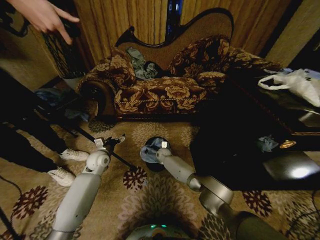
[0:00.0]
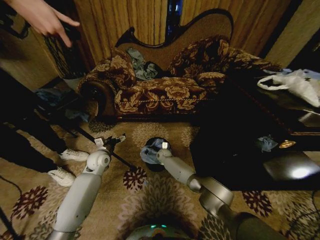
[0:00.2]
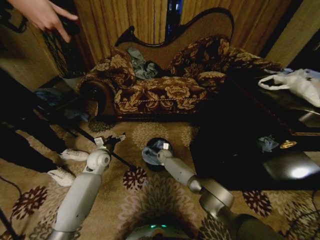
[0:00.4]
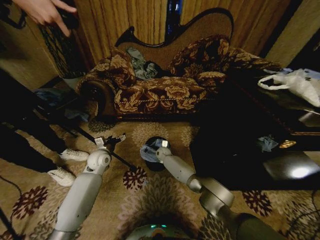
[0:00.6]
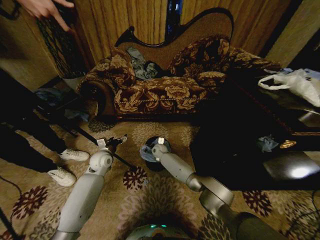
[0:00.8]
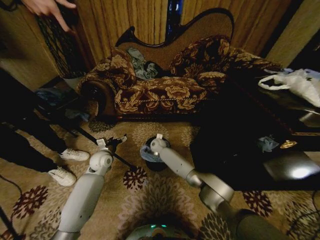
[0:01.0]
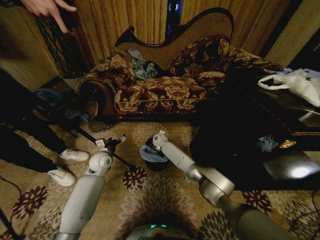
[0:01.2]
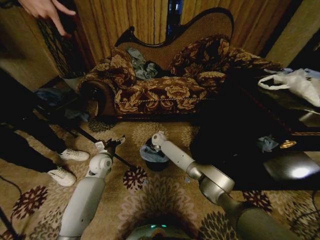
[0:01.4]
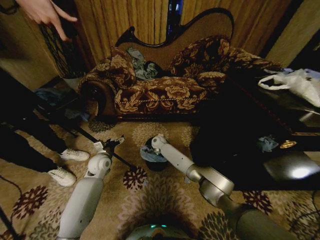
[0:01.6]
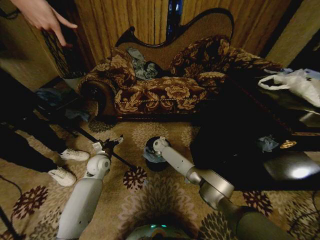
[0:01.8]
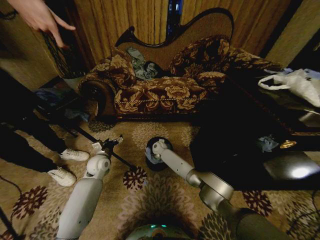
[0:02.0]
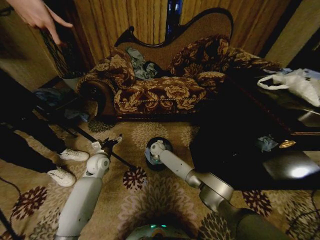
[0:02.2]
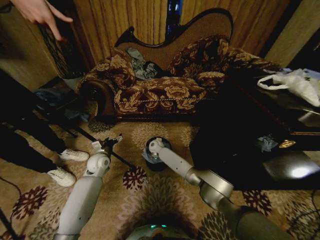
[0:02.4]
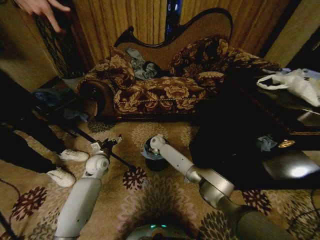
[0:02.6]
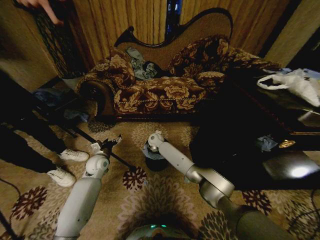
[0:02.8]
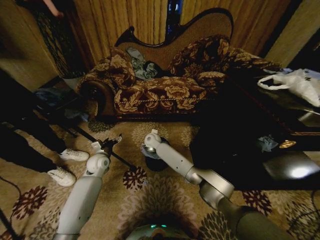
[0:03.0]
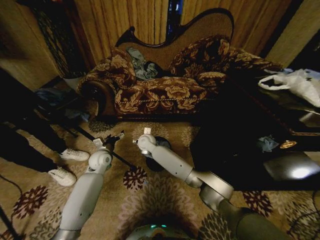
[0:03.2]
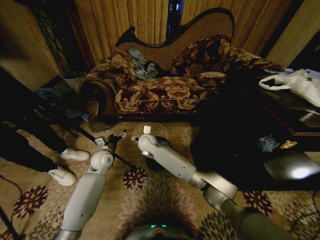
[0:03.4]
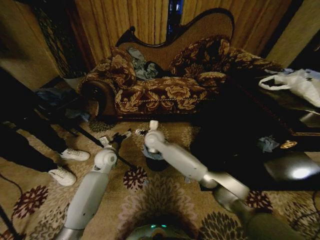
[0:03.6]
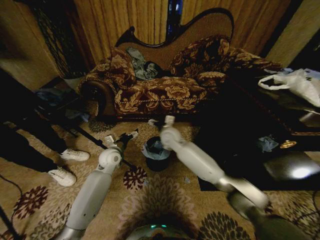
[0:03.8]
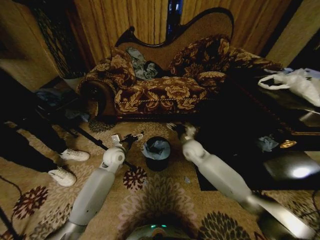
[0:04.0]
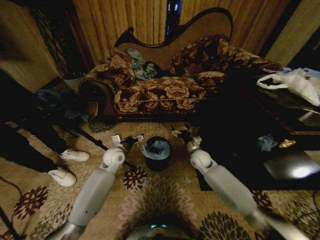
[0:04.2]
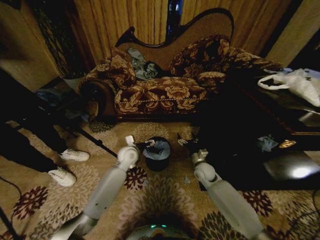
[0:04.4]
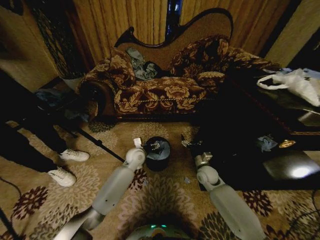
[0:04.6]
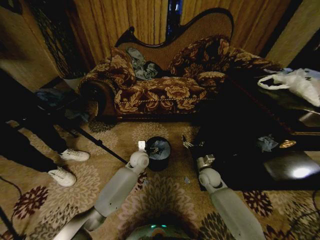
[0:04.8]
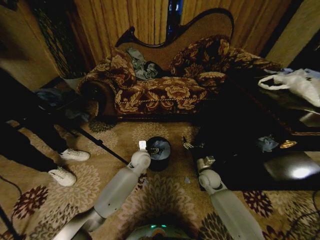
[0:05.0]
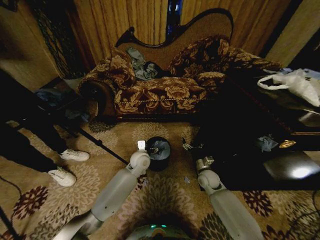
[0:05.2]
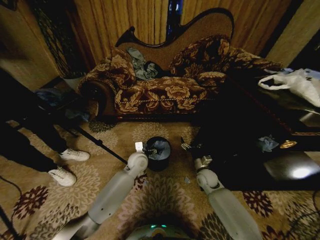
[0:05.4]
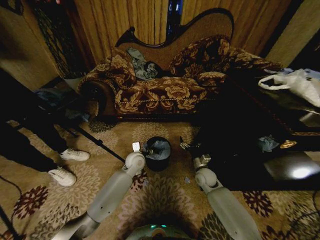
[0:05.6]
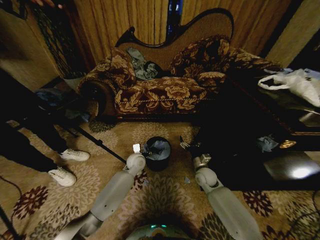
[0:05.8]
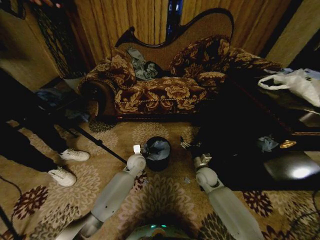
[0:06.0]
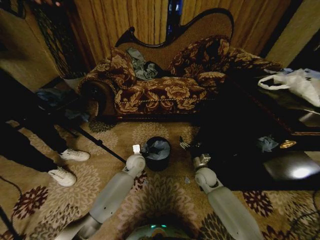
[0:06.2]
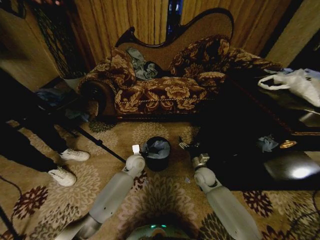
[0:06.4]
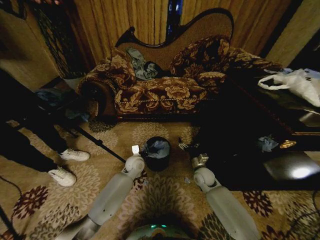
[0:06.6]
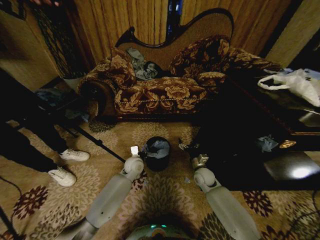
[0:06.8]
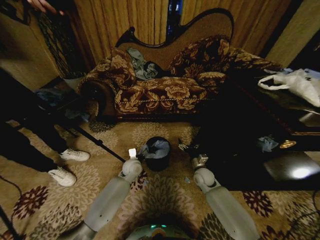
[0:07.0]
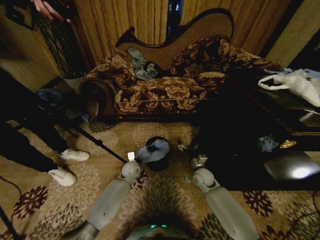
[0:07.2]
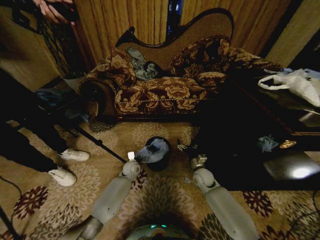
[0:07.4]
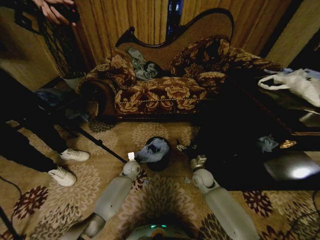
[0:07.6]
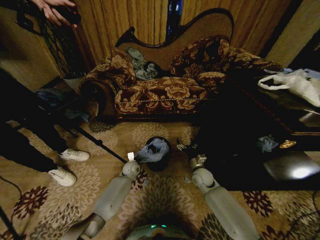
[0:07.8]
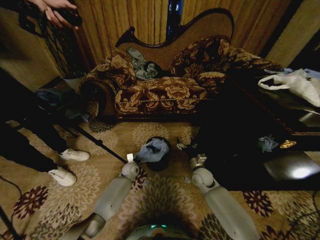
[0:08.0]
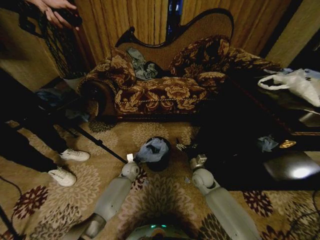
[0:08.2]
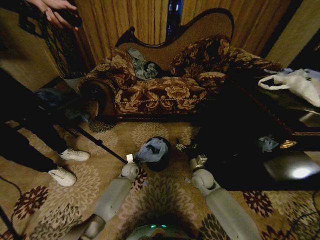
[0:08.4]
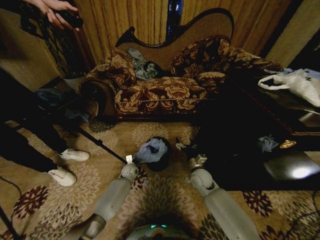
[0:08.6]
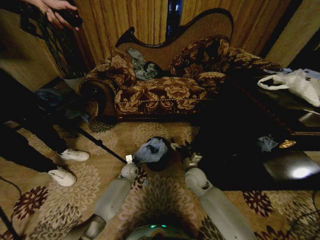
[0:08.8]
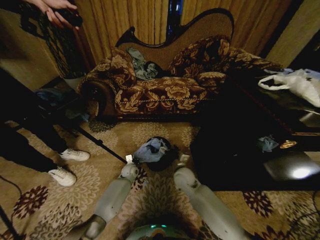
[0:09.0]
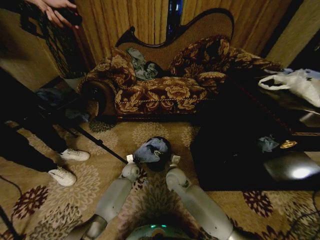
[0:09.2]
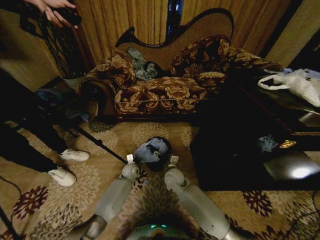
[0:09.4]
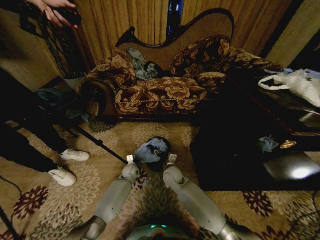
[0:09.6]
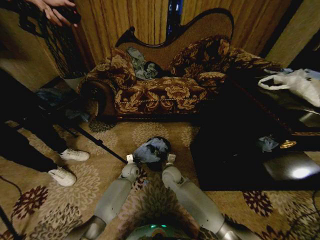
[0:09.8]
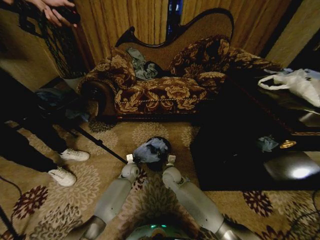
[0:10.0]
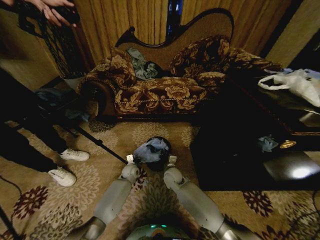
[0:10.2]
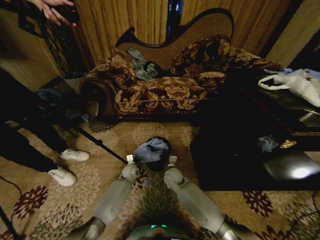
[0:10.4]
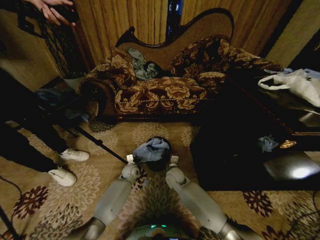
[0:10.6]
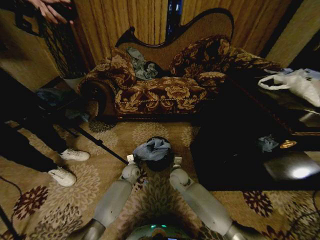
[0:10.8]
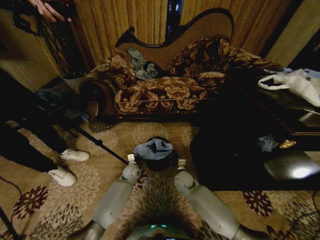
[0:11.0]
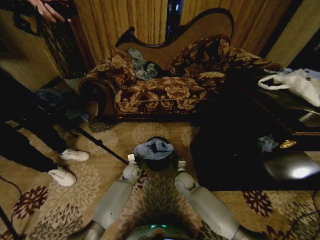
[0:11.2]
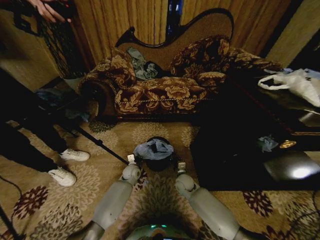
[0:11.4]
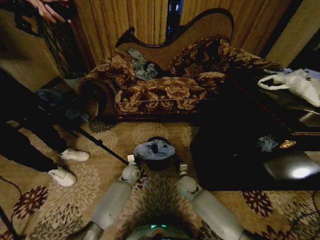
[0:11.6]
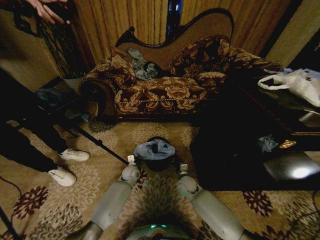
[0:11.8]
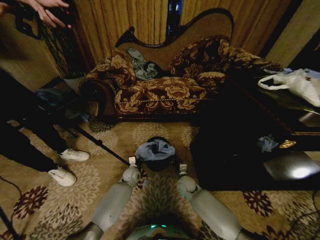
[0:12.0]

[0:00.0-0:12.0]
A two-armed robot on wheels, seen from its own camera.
Task of the whole recording: Place a garbage bag over the trash bin.
0:00.0 to 0:01.6: The right gripper heads upward, covering approximately 10 cm, and opens up.
0:01.6 to 0:03.0: The right gripper heads upward, covering approximately 5 cm.
0:03.0 to 0:04.4: The left gripper heads to the right, covering about 15 cm; the right gripper is displaced to the right and backward by approximately 30 cm.
0:04.4 to 0:06.0: The left gripper is displaced downward by about 5 cm, and closes.
0:06.0 to 0:07.6: The left gripper heads downward, covering some 10 cm, and closes up.
0:07.6 to 0:09.0: The right gripper heads to the left, covering roughly 10 cm.
0:09.0 to 0:10.4: The right gripper heads downward, covering approximately 5 cm, and closes up.
0:10.4 to 0:12.0: The right gripper goes approximately 10 cm to the right.

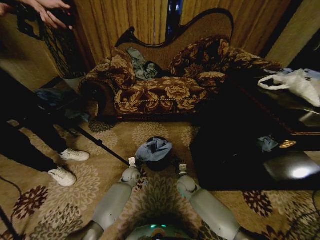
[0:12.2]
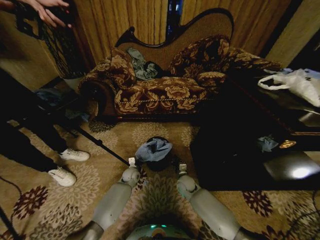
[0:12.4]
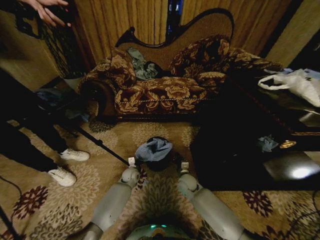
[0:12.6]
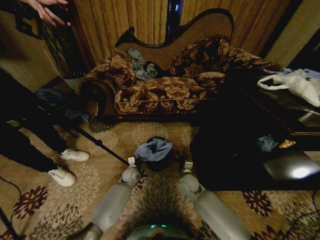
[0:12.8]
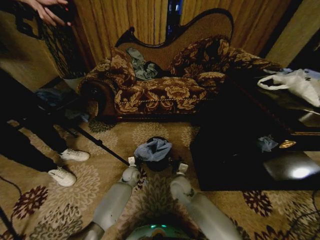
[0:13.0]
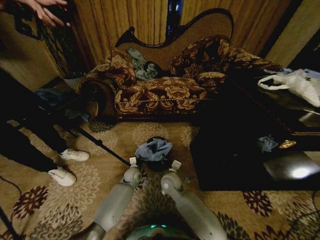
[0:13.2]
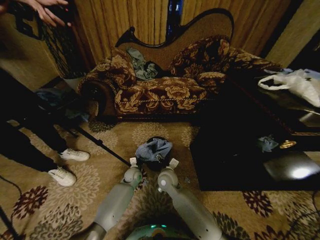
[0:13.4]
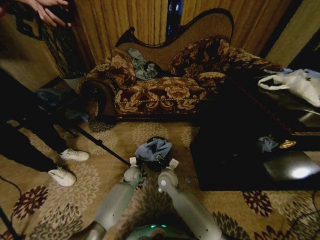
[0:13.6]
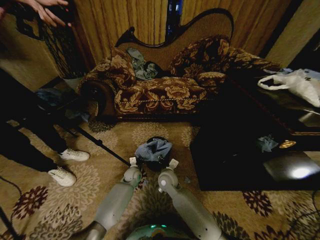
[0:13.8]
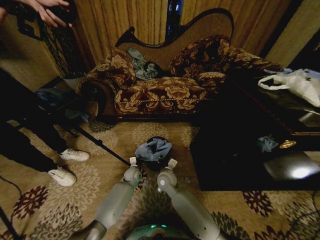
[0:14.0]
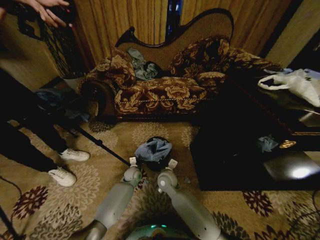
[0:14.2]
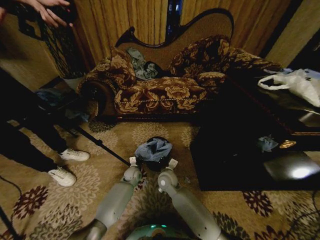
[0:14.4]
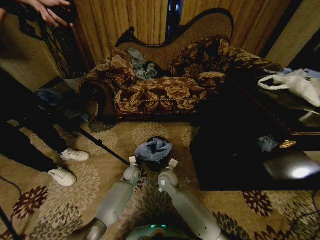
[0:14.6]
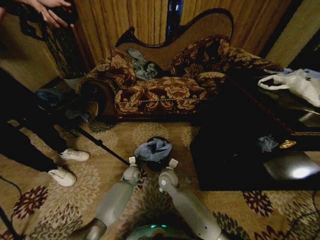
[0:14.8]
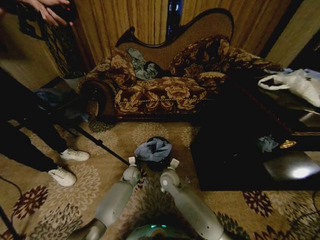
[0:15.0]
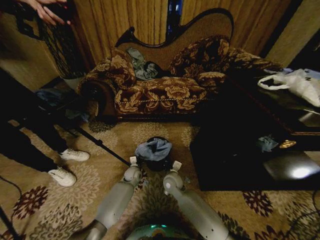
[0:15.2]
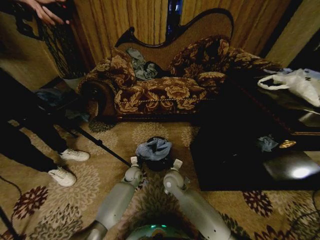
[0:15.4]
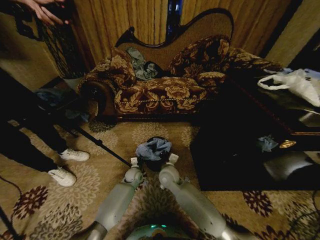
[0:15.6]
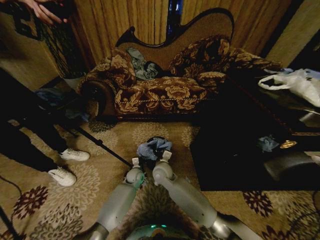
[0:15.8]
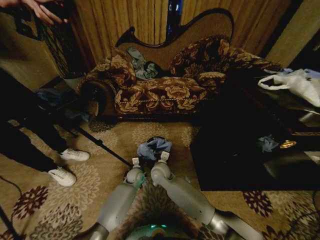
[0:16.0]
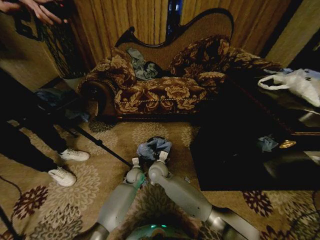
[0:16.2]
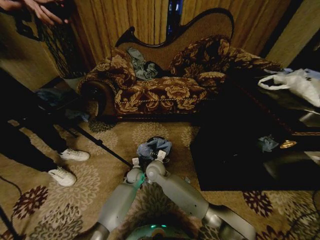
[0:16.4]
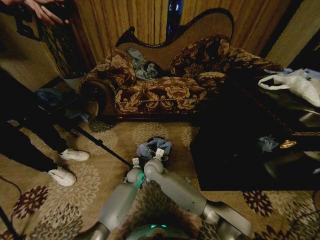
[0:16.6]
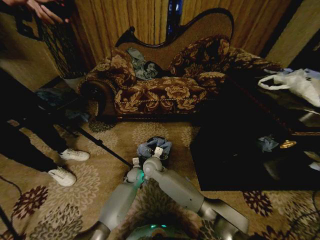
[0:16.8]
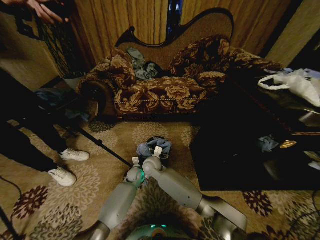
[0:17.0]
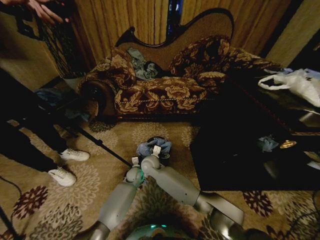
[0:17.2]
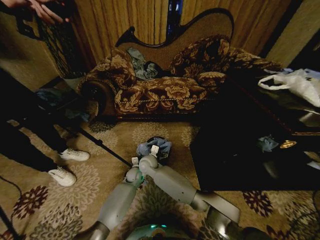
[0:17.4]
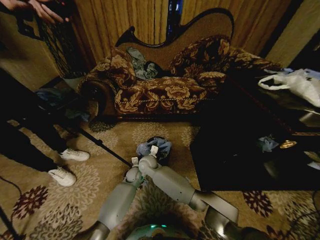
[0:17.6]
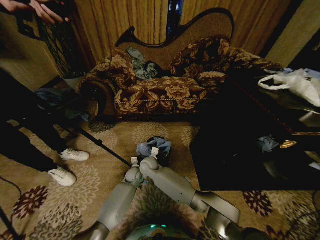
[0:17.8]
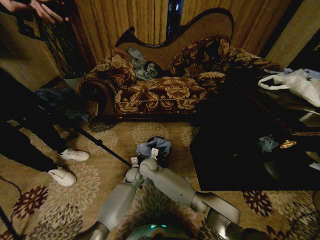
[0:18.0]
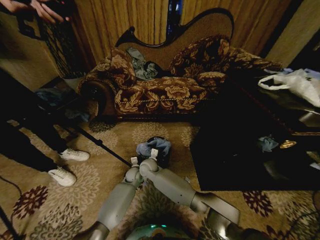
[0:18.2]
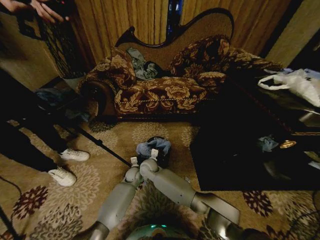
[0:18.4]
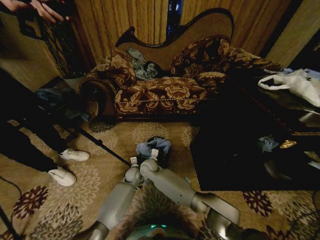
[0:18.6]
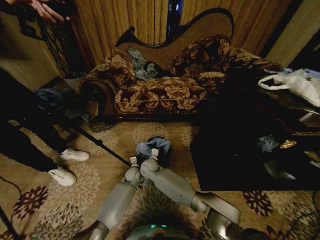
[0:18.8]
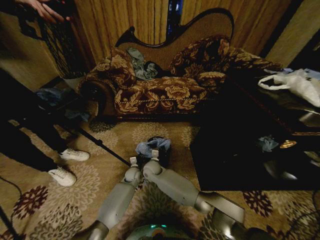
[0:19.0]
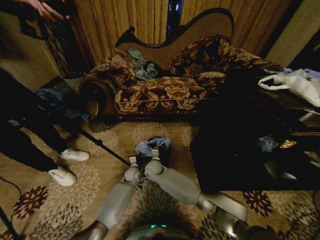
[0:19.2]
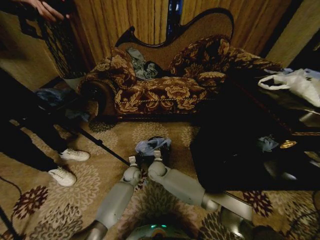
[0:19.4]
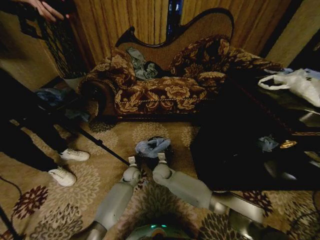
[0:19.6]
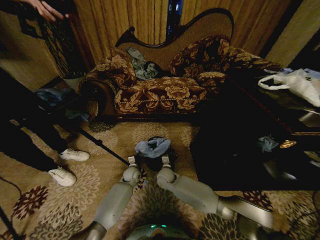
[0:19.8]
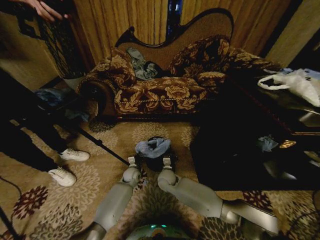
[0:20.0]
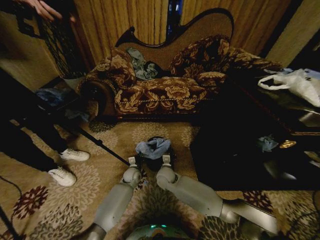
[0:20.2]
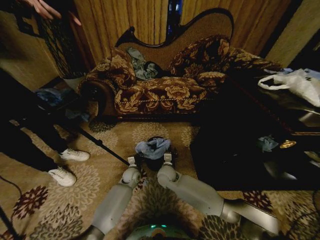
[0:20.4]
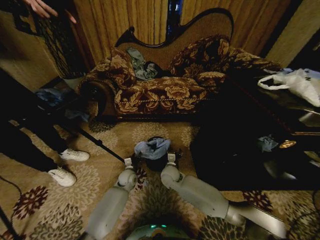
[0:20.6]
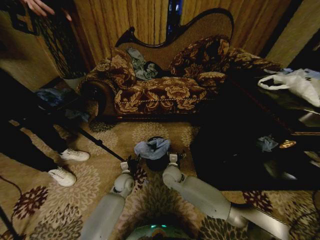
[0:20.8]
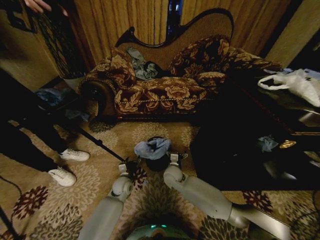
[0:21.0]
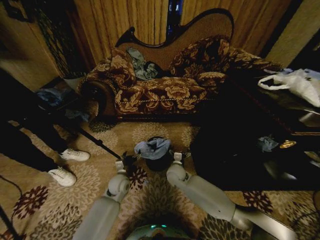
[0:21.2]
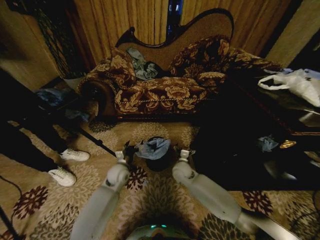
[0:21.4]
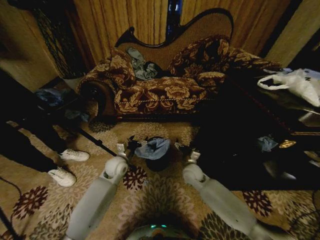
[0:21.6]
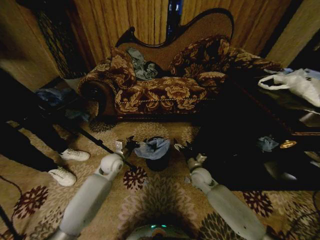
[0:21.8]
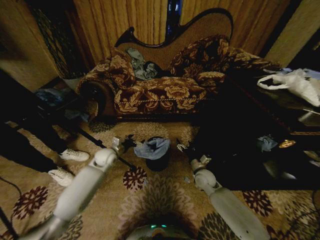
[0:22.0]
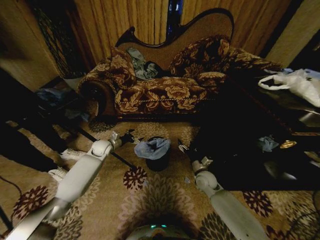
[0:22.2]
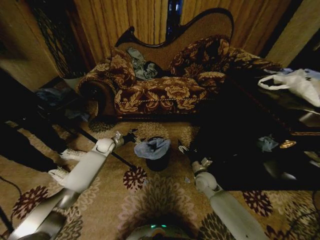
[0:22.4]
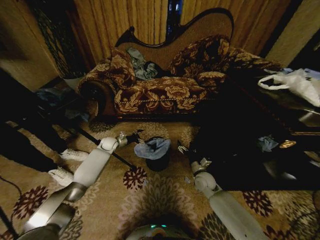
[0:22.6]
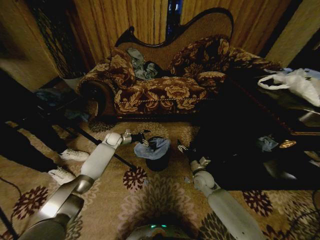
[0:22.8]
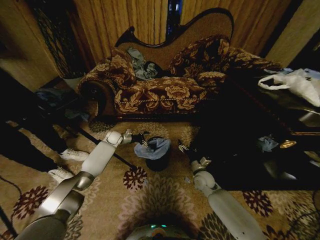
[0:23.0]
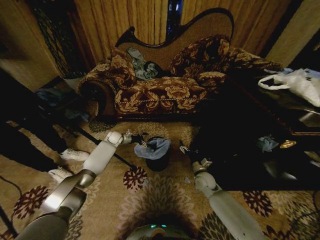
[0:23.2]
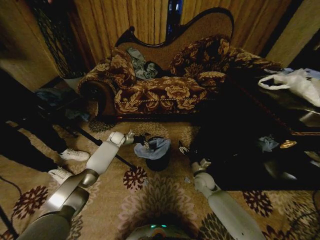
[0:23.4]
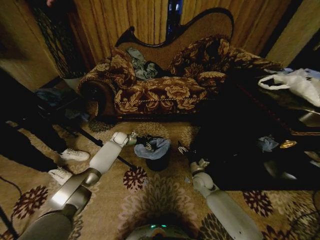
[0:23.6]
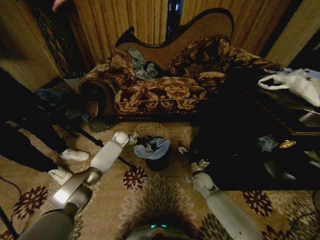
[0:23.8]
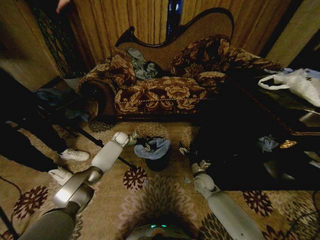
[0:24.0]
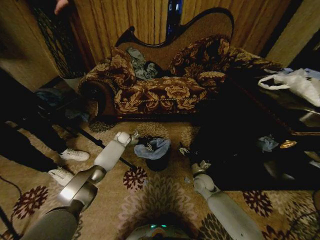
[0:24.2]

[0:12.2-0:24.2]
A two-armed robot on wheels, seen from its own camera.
Task of the whole recording: Place a garbage bag over the trash bin.
0:12.2 to 0:13.8: The right gripper shifts some 15 cm to the left and upward, and opens up.
0:13.8 to 0:15.2: The right gripper closes.
0:15.2 to 0:16.6: The right gripper moves to the left and upward, roughly 10 cm, and opens up.
0:16.6 to 0:18.2: The right gripper moves about 5 cm, and closes its fingers.
0:18.2 to 0:19.8: The right gripper shifts roughly 10 cm to the right.
0:19.8 to 0:21.2: The left gripper goes some 10 cm backward and upward, and opens its fingers. Meanwhile the right gripper heads to the right, covering some 5 cm, and opens up.
0:21.2 to 0:22.6: The right gripper travels to the right by approximately 15 cm. Meanwhile the left gripper heads forward and to the left, covering roughly 25 cm.
0:22.6 to 0:24.2: The left gripper shifts approximately 10 cm forward and to the right.
